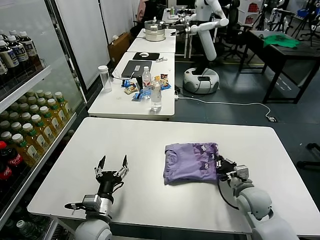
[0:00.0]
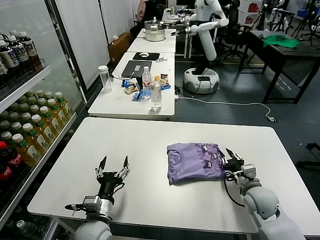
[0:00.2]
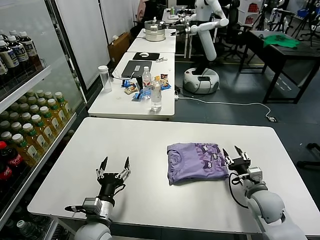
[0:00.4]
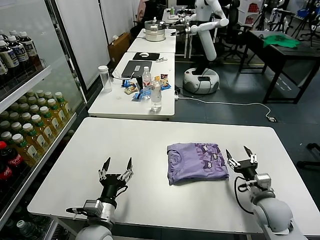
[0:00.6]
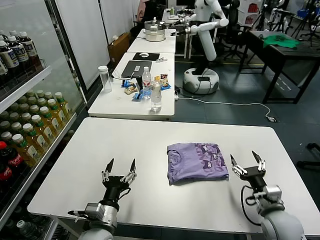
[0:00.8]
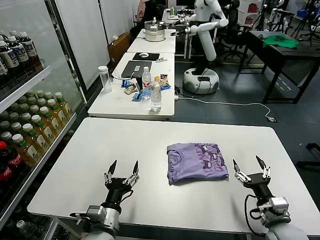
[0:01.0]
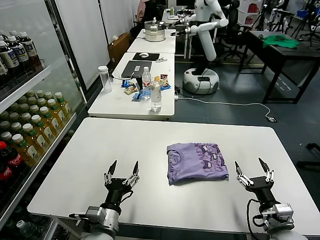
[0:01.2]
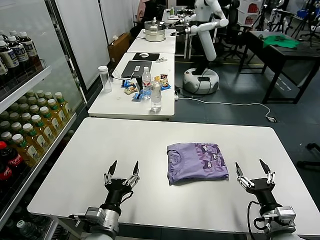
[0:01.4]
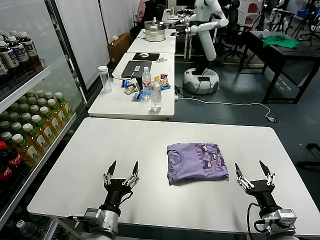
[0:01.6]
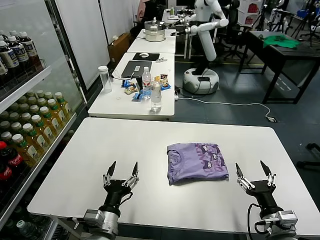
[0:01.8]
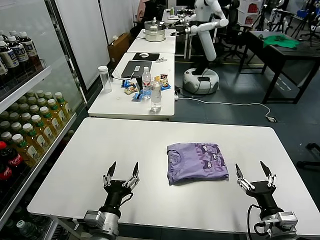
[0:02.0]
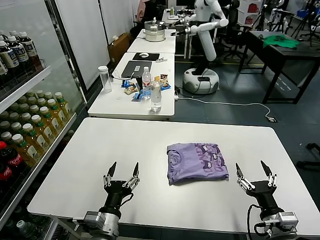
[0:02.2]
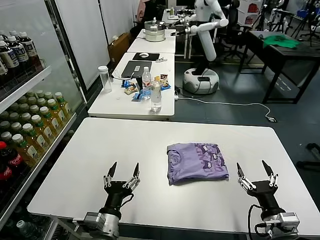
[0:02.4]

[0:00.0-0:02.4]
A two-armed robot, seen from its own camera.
Task of the whole recording: fold and organize the clothes.
0:00.0 to 0:01.2: The right gripper travels backward and to the right by roughly 15 cm, and opens its fingers.
0:01.2 to 0:02.4: The grippers stay close to where they were, moving slightly.

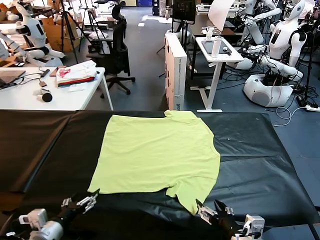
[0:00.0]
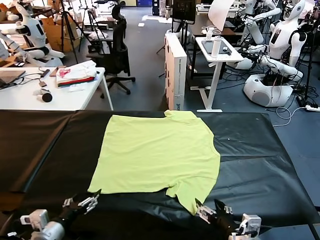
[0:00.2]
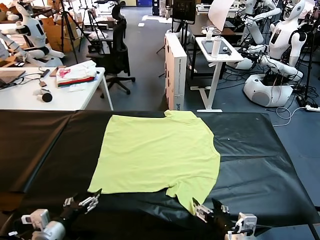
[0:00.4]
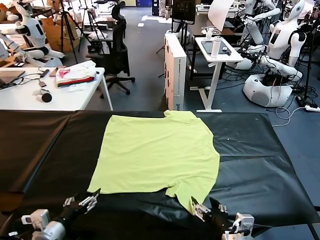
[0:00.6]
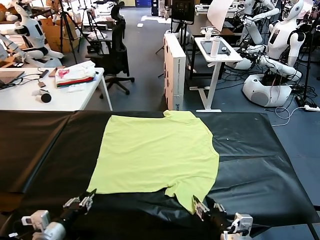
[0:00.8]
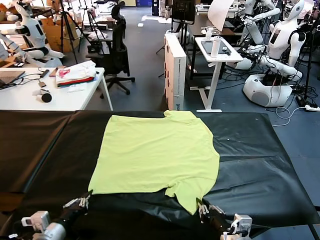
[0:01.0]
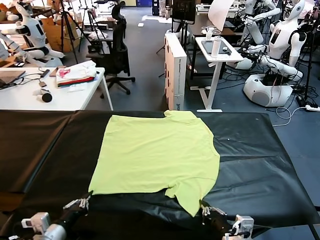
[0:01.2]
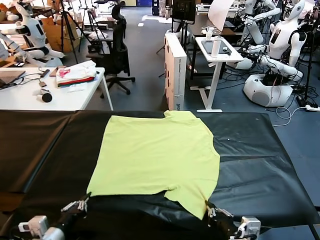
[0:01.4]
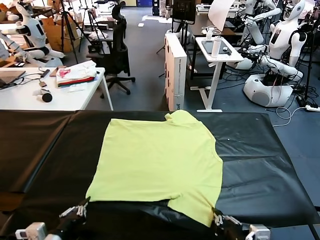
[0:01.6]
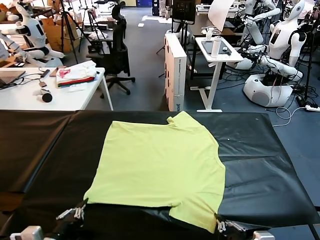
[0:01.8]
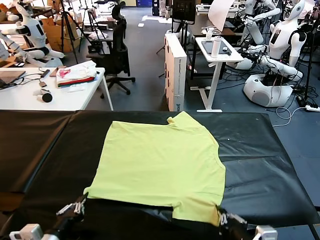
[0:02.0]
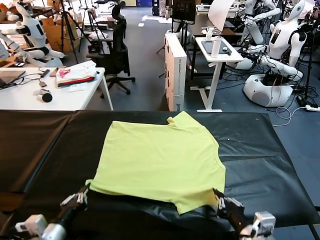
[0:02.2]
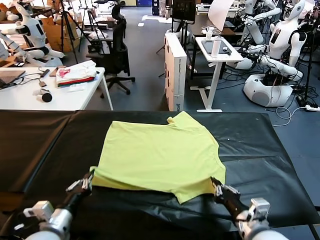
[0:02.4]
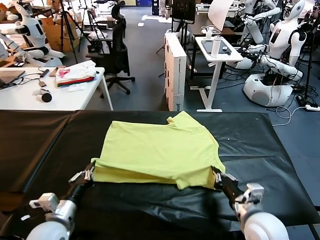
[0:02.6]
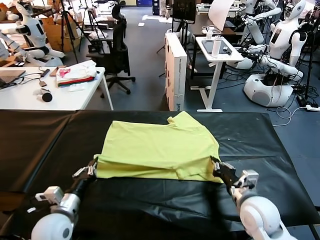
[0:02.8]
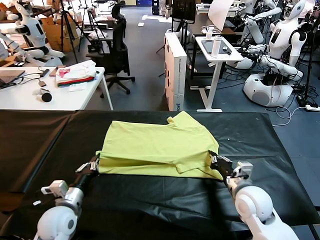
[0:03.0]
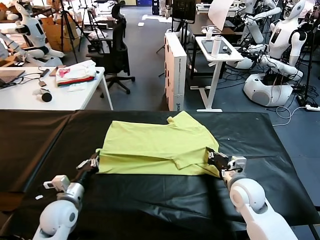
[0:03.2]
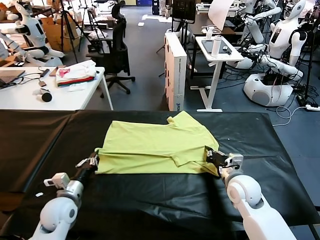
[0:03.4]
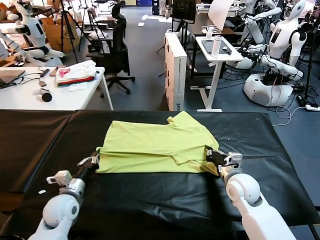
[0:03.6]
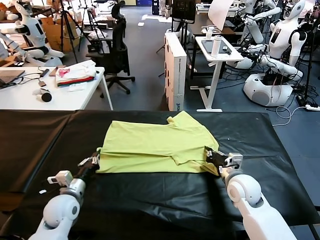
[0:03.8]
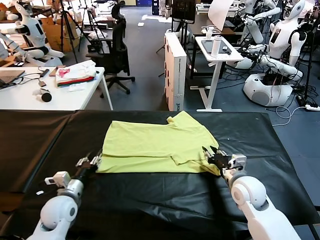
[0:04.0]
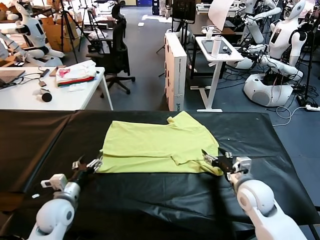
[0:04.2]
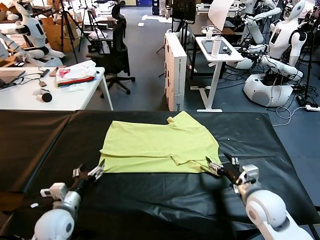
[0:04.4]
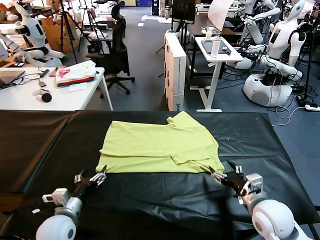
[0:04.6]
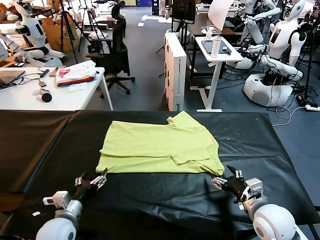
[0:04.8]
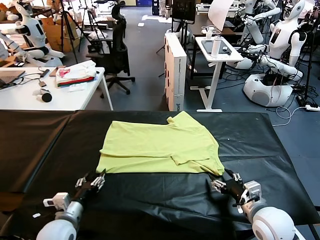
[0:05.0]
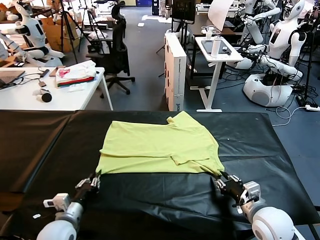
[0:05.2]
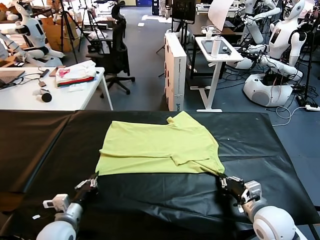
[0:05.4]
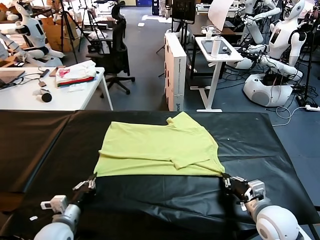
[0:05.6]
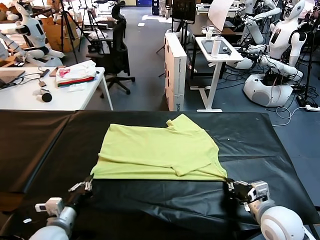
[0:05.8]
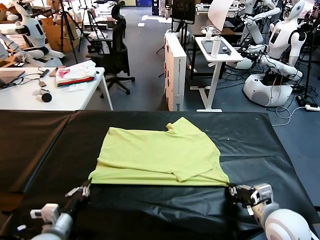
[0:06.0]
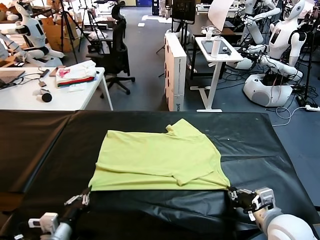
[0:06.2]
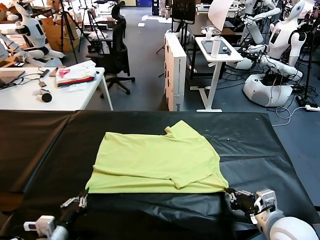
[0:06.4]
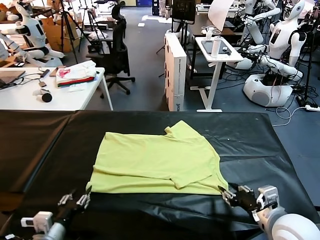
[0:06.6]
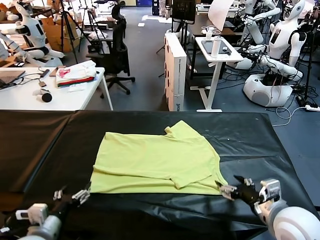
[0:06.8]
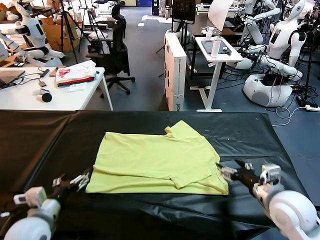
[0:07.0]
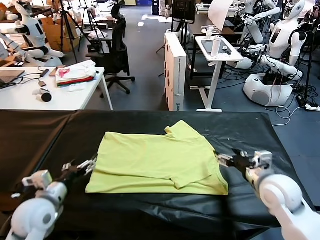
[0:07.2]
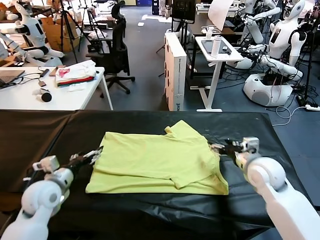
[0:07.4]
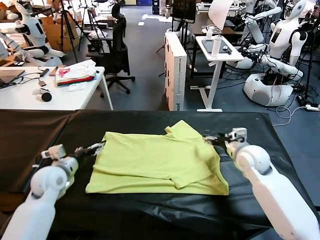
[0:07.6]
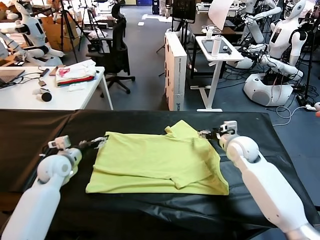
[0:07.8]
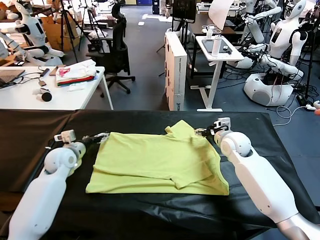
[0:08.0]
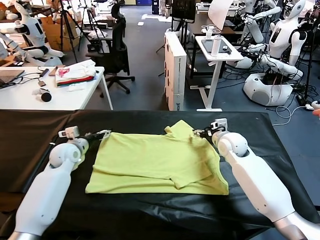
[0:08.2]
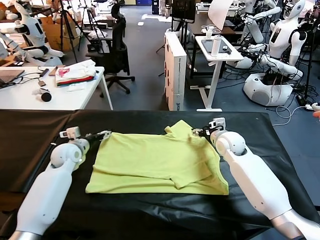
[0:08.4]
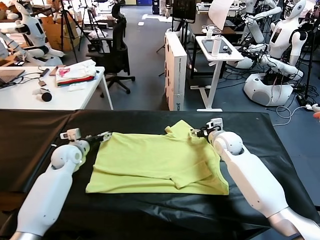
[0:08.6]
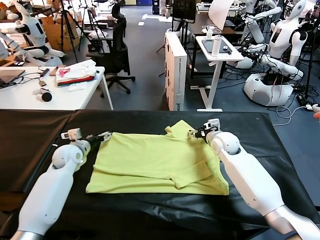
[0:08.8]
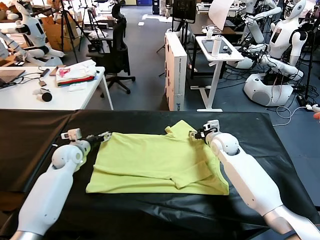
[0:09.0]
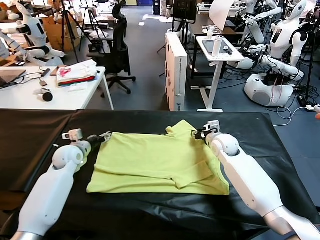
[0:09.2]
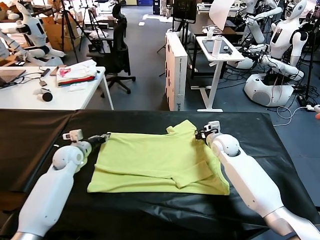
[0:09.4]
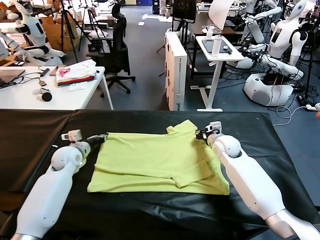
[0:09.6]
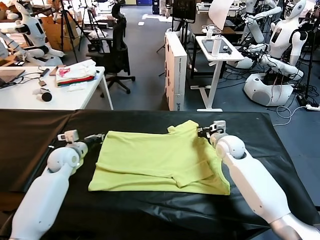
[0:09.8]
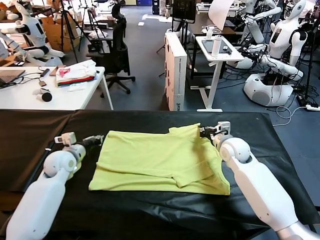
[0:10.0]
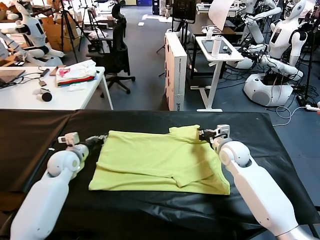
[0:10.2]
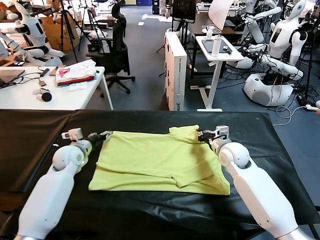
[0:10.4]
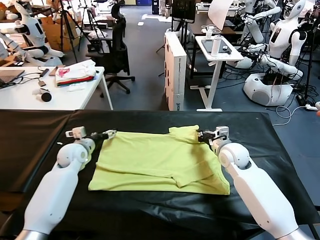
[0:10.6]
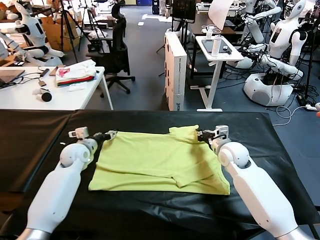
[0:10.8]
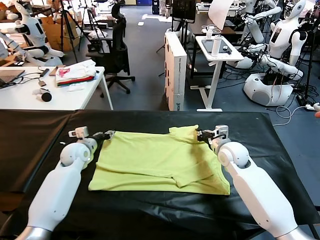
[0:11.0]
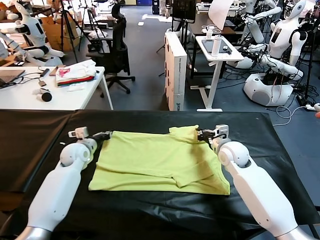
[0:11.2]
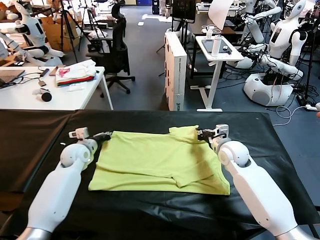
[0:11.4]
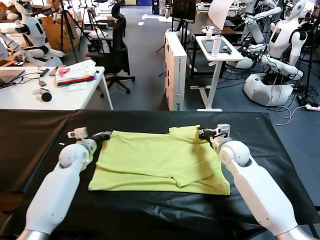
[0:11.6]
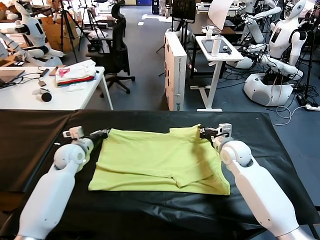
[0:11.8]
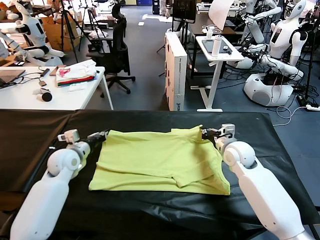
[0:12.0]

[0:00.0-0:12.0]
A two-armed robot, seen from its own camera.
Task of the whole recording: fold and organize the clothes.
Step, 0:00.0 to 0:01.4: use both grippers simultaneously to clamp the lower edge of the clothing fabric.
Step, 0:01.6 to 0:04.0: use both grippers to drag the lower edge of the fabric forward and fold it over the upper edge.
Step, 0:04.4 to 0:06.6: Drag the clothes downward with both gripper.
Step, 0:06.8 to 0:11.6: use both grippers simultaneously to clamp the upper edge of the clothing fabric.
0:01.6 to 0:03.0: The right gripper moves forward, roughly 25 cm. Meanwhile the left gripper is displaced forward by about 15 cm.
0:03.0 to 0:04.4: The right gripper heads backward, covering roughly 10 cm, and opens up; the left gripper opens its fingers.
0:04.4 to 0:06.0: The left gripper shifts about 5 cm backward, and closes its fingers, while the right gripper moves about 5 cm, and closes its fingers.
0:06.0 to 0:07.6: The two grippers go approximately 25 cm forward. The right gripper opens up; the left gripper opens up.
0:07.6 to 0:09.0: The left gripper goes some 10 cm forward; the right gripper shifts by about 10 cm, and closes.
0:09.0 to 0:10.4: The left gripper closes and opens again. The right gripper is displaced backward by roughly 5 cm, and closes up.
0:10.4 to 0:12.0: The left gripper travels backward by approximately 5 cm, and closes up.

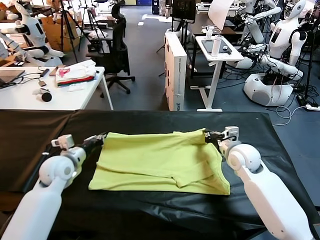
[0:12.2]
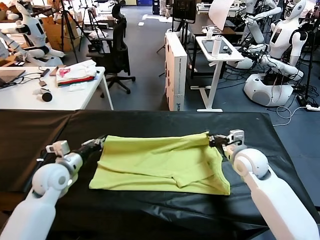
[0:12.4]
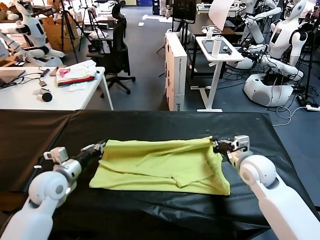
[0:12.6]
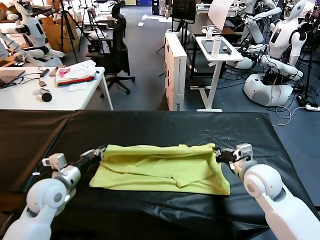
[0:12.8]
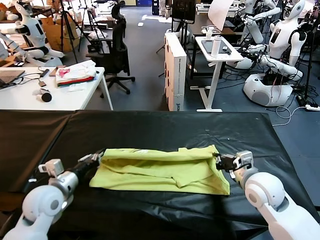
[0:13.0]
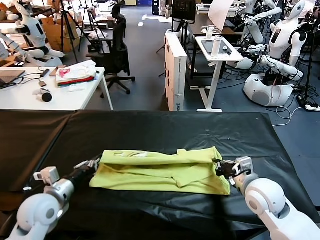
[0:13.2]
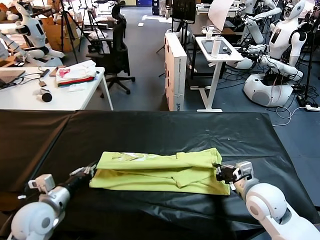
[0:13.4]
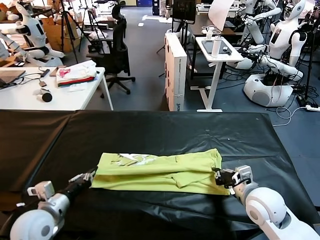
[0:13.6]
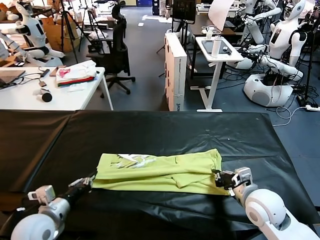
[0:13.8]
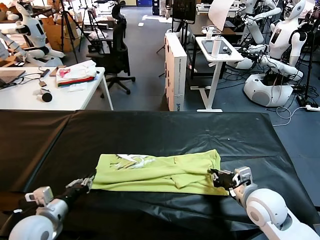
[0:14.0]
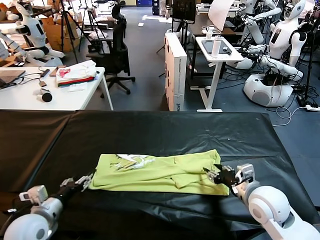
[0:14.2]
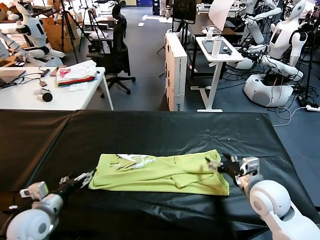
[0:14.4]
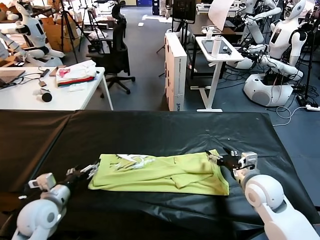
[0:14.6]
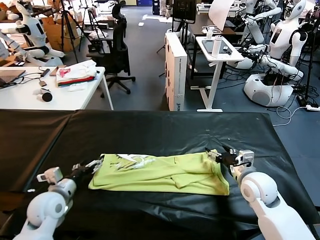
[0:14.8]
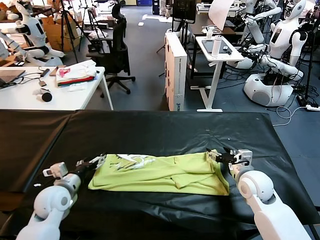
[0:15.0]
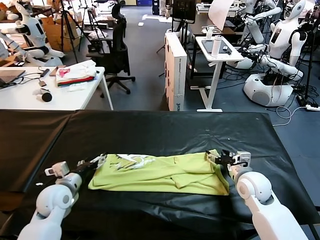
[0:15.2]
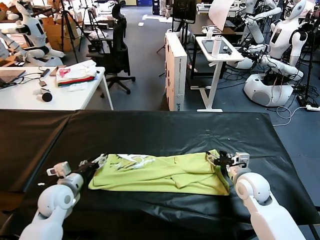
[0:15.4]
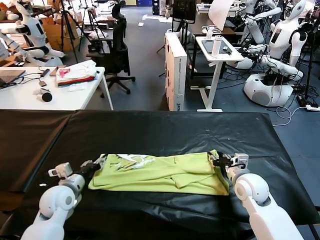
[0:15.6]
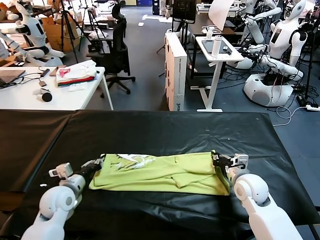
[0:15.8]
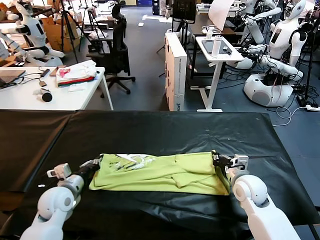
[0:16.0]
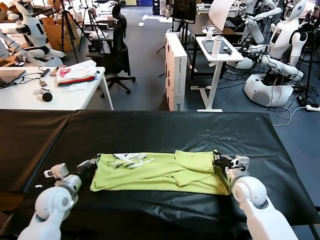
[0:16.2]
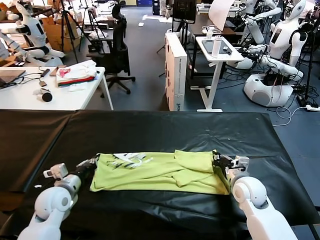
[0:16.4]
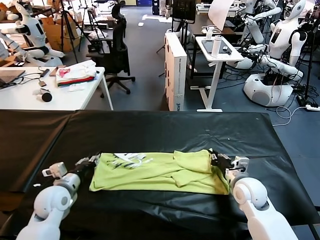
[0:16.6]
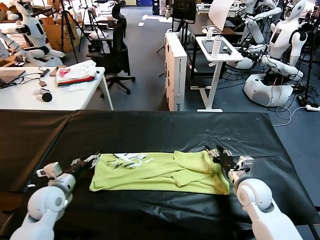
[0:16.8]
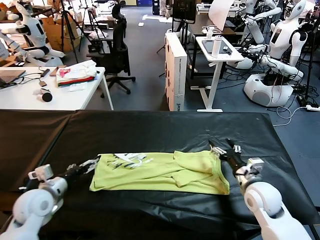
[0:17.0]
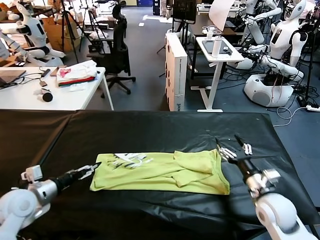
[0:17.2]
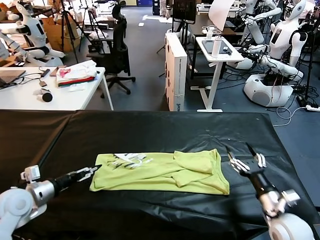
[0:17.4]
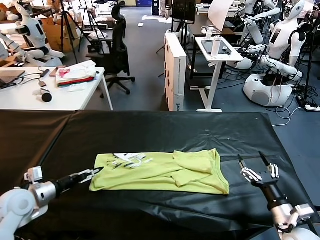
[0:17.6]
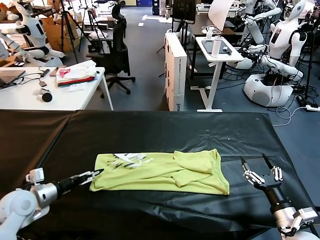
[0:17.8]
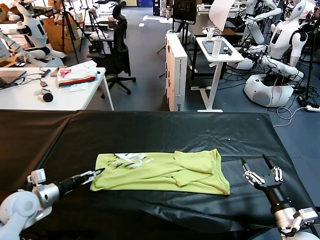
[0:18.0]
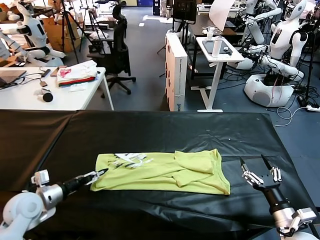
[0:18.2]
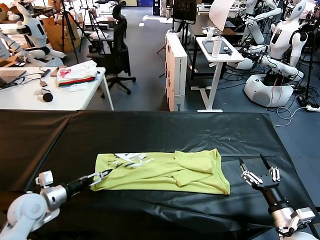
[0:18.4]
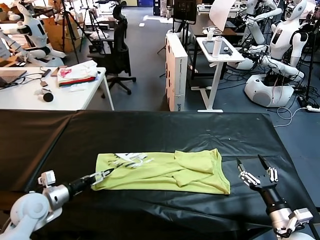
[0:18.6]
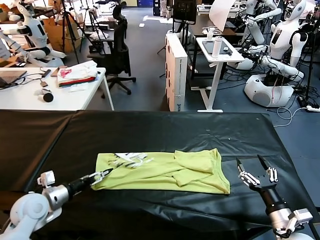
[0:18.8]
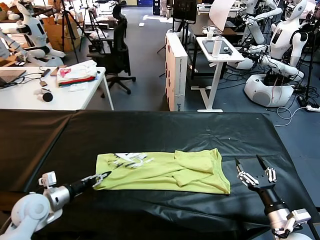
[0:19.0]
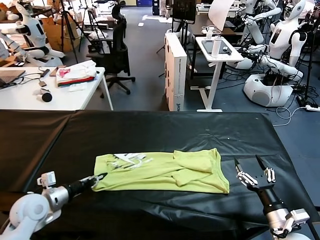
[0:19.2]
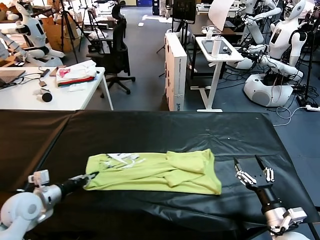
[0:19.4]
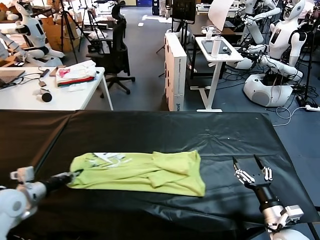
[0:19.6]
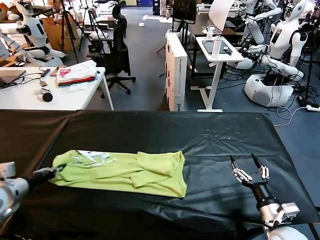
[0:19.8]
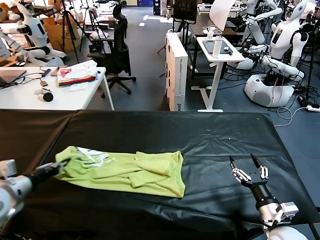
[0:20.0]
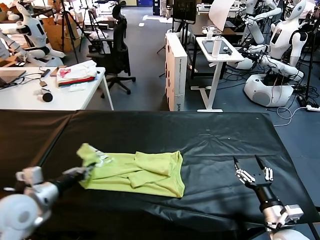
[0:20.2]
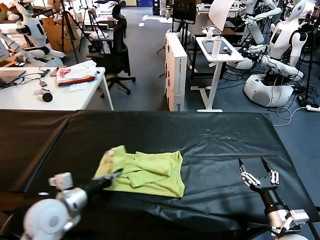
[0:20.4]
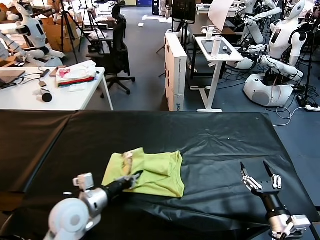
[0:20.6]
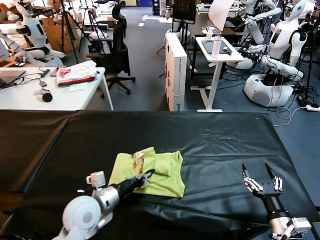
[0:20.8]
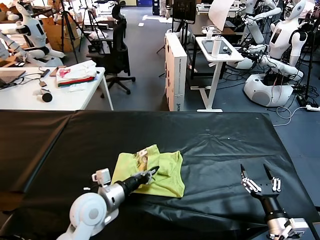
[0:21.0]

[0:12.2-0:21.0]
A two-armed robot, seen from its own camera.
Task of the whole recording: fold and organize the clothes.
Step, 0:12.2 to 0:14.2: use both grippers to drag the upper edge of the fabric backward and fold it over the lower edge.
Step, 0:14.4 to 0:19.2: use the left gripper to clamp the left edge of the fabric.
0:12.2 to 0:13.6: Both grippers travel together backward, approximately 15 cm.
0:13.6 to 0:15.2: Both grippers move forward, some 10 cm. The left gripper opens its fingers. The right gripper opens.
0:15.2 to 0:16.6: The right gripper closes its fingers; the left gripper closes its fingers.
0:16.6 to 0:18.0: The right gripper goes approximately 20 cm backward and to the right, and opens up. The left gripper shifts some 5 cm to the left, and opens up.
0:18.0 to 0:19.6: The left gripper moves approximately 5 cm, and closes its fingers.
0:19.6 to 0:21.0: The left gripper goes approximately 25 cm to the right.
